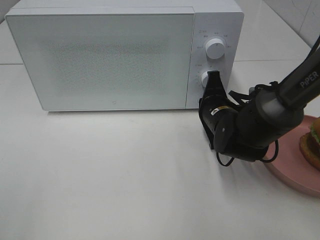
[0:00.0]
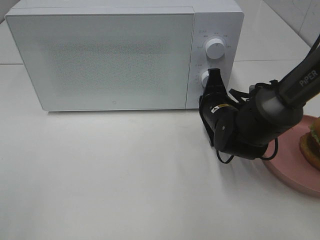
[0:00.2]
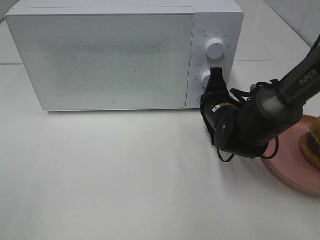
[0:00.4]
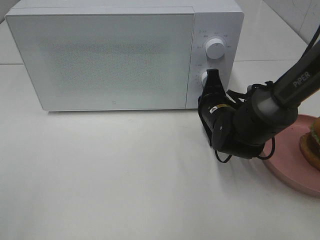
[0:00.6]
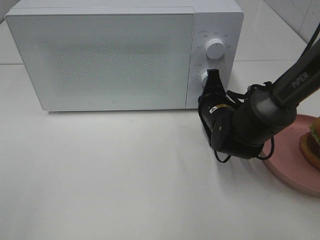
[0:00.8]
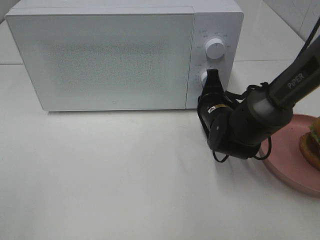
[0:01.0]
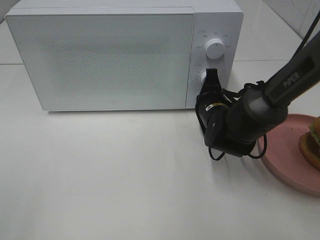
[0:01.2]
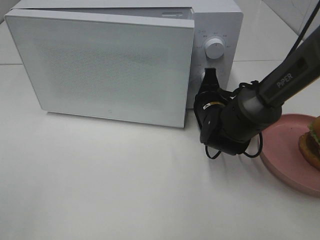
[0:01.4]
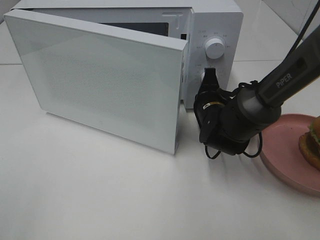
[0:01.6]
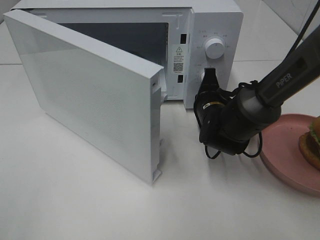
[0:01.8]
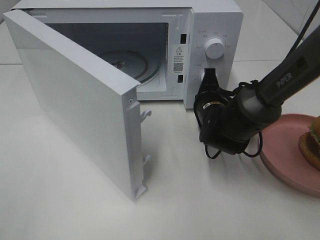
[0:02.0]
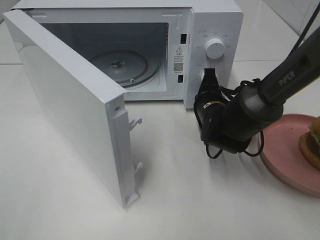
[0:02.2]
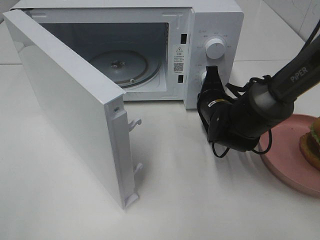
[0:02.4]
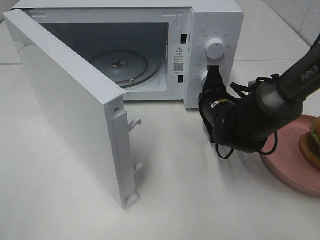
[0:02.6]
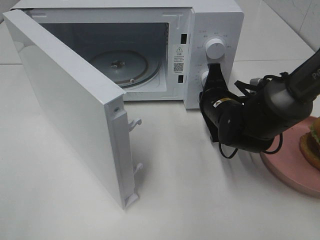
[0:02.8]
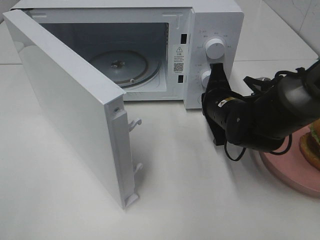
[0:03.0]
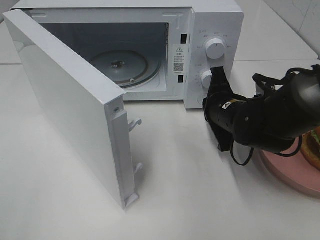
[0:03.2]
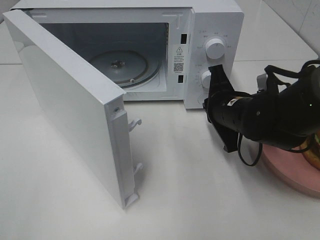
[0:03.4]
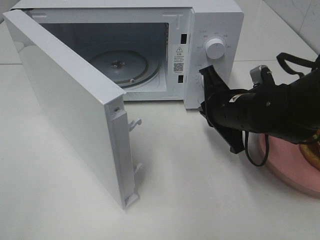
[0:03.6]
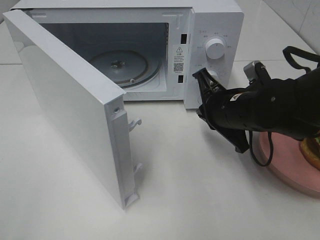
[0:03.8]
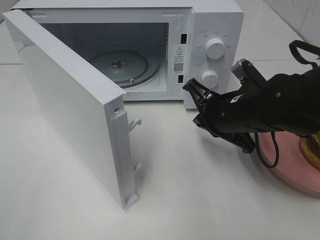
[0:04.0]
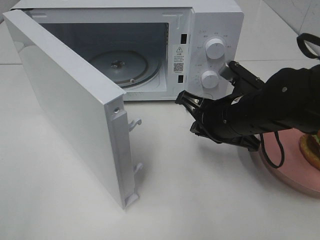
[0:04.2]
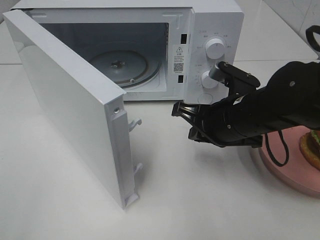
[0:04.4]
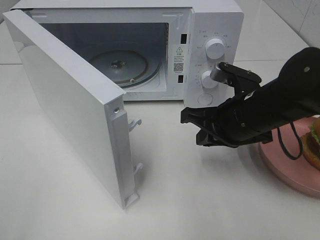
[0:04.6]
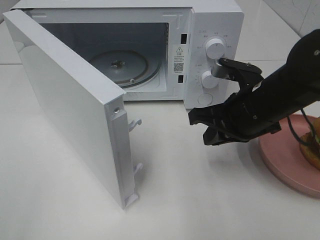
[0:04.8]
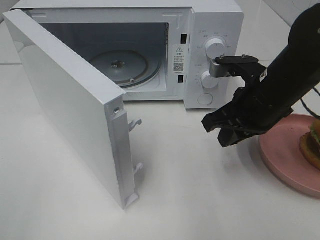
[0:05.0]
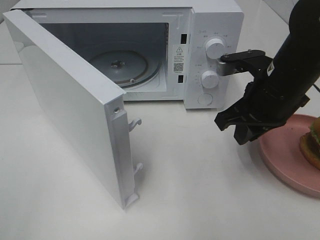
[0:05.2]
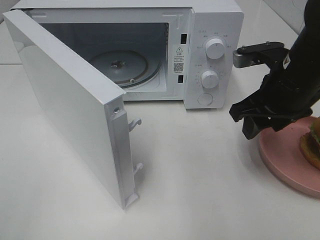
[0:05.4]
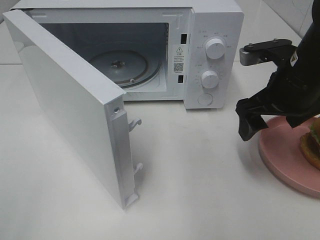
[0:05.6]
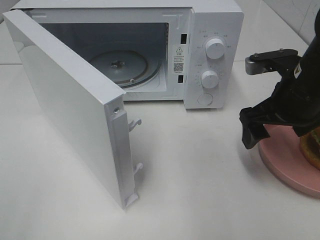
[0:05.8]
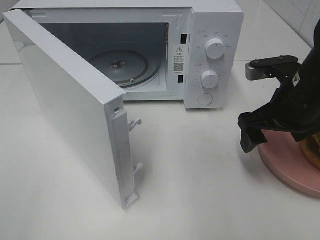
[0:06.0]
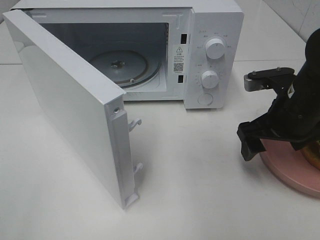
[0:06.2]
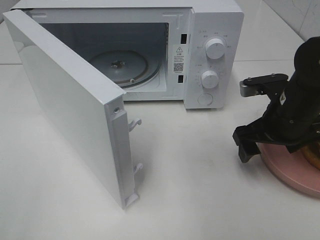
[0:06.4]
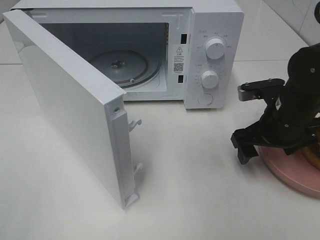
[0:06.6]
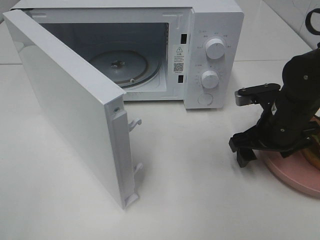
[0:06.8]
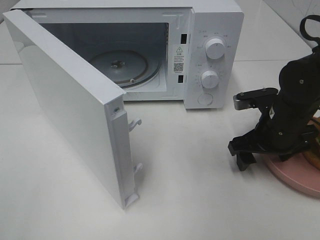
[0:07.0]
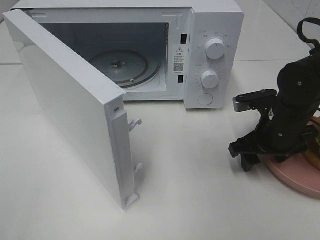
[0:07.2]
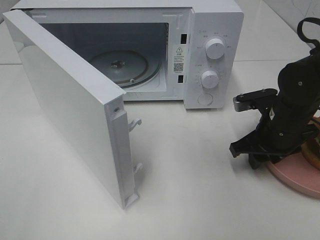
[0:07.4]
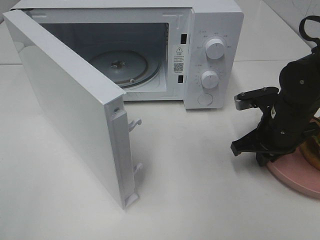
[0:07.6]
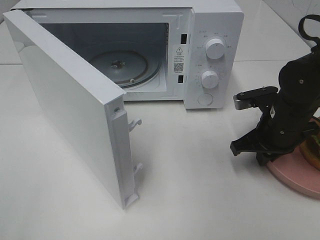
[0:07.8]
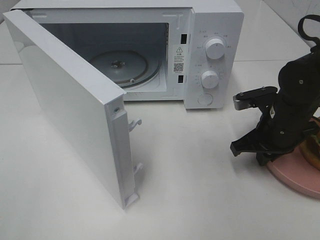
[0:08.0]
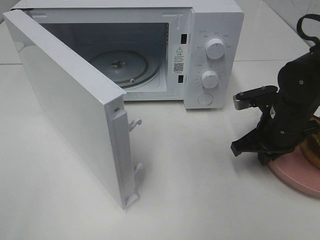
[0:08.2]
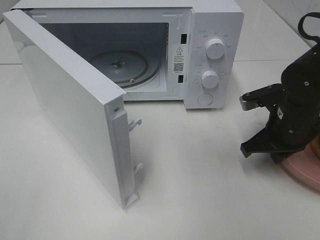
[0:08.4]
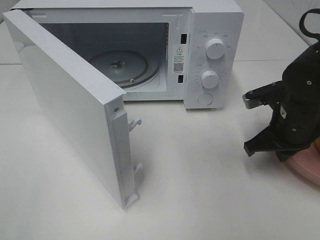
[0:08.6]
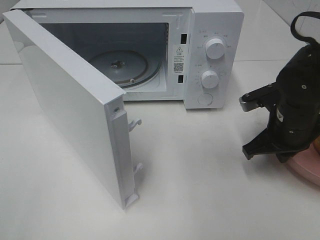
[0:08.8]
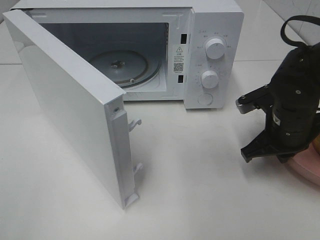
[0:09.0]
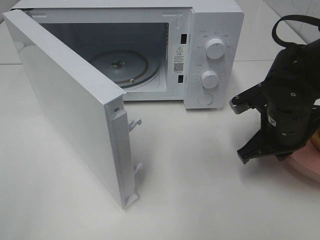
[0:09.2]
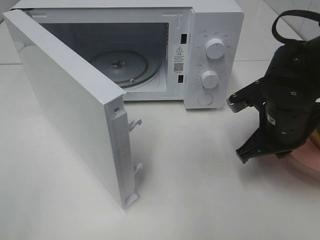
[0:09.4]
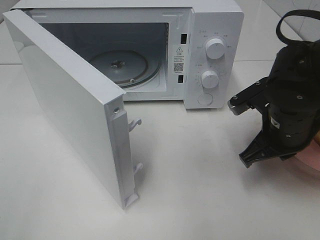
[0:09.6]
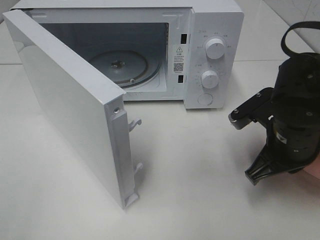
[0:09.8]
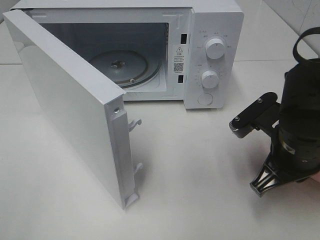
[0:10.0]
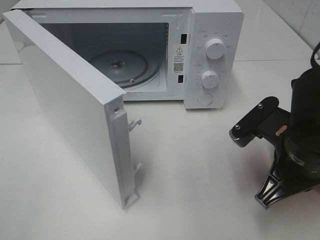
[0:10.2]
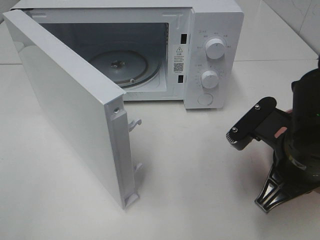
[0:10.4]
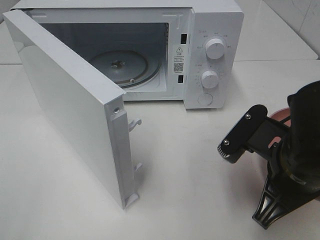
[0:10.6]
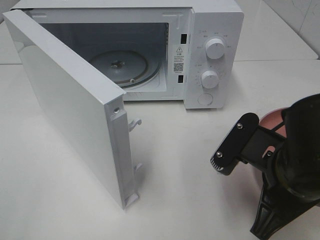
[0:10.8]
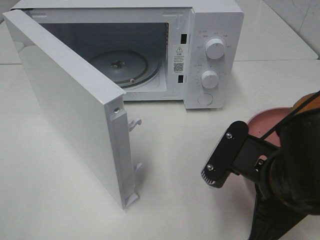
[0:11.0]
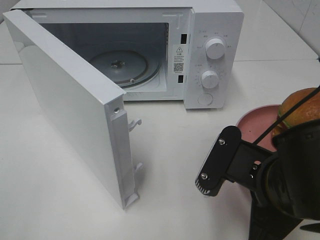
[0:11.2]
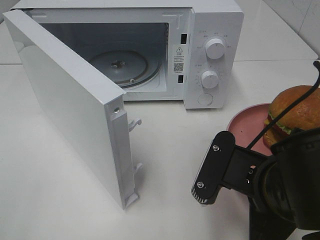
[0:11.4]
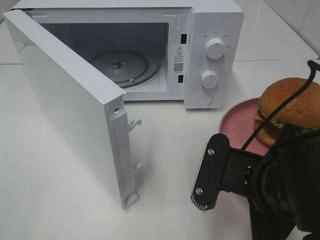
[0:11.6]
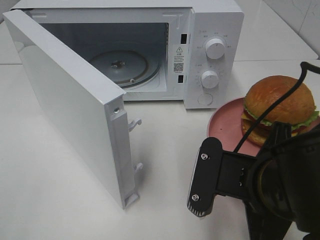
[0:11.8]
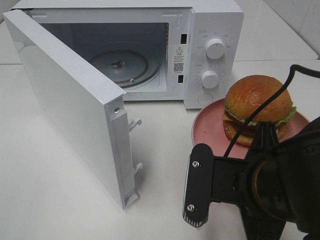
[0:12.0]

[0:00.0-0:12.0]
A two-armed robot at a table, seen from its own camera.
Task of the whole recording: Heat the burger.
Step, 0:00.0 to 0:02.8: Right hand: press the switch.
Step, 0:03.0 to 0:08.2: Right hand: grab the plate with the hamburger.
0:00.0 to 0:01.6: The grippers make only small movements.
0:03.0 to 0:04.4: The right gripper is displaced backward by some 5 cm.
0:04.4 to 0:06.0: The right gripper heads to the right, covering some 10 cm, and opens.
0:06.0 to 0:07.6: The right gripper travels downward by approximately 10 cm, and closes.
0:07.6 to 0:09.0: The grippers make only small movements.
0:09.0 to 0:10.4: The right gripper travels backward by about 10 cm.
0:10.4 to 0:12.0: The right gripper travels to the left and backward by roughly 10 cm.

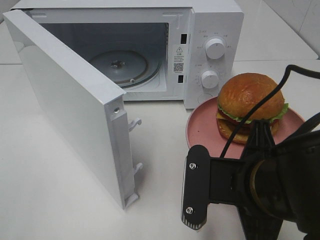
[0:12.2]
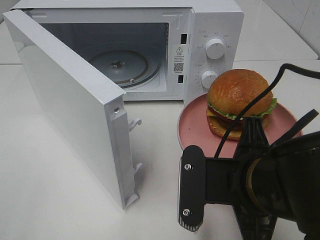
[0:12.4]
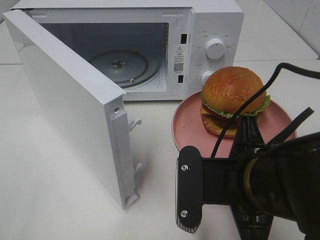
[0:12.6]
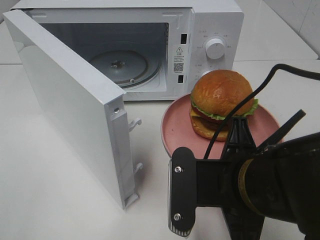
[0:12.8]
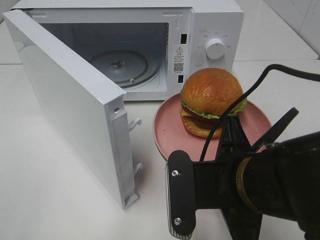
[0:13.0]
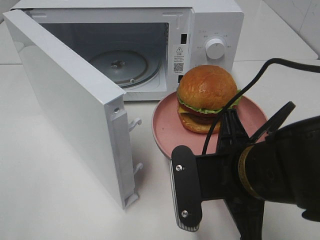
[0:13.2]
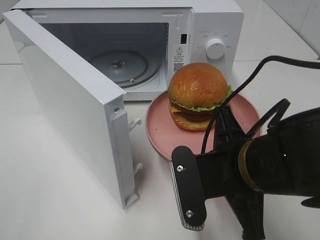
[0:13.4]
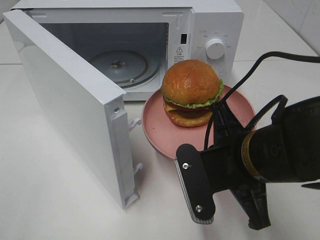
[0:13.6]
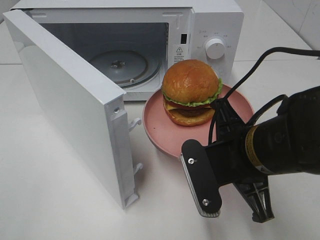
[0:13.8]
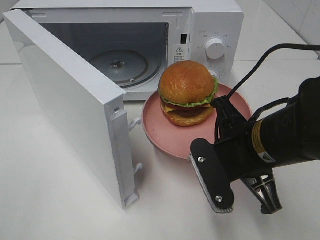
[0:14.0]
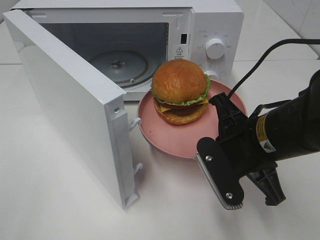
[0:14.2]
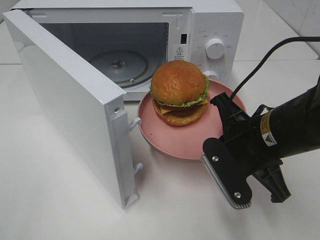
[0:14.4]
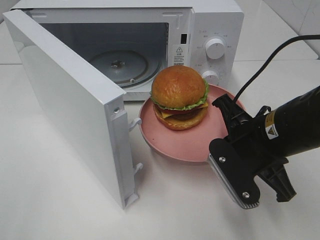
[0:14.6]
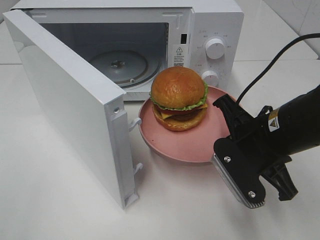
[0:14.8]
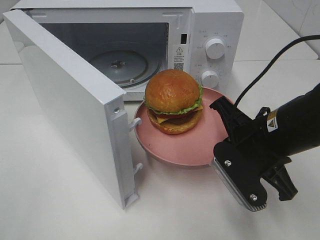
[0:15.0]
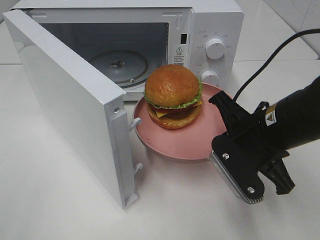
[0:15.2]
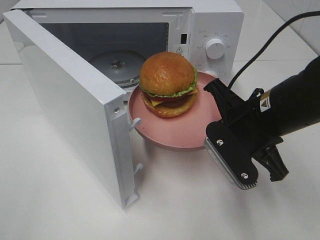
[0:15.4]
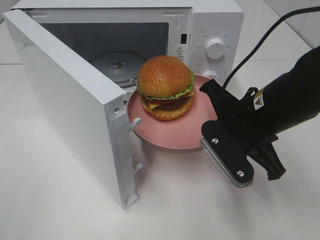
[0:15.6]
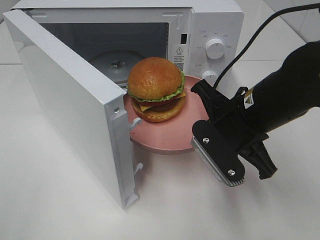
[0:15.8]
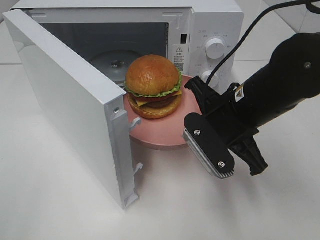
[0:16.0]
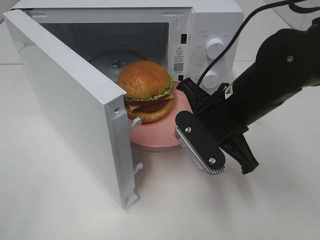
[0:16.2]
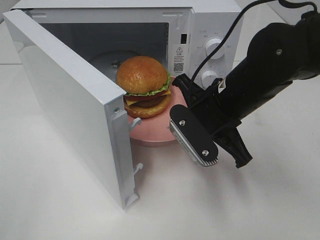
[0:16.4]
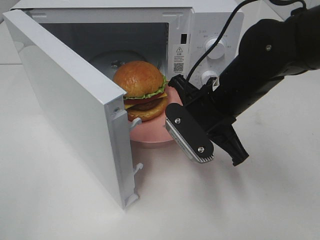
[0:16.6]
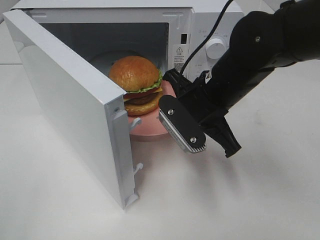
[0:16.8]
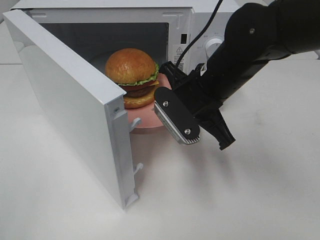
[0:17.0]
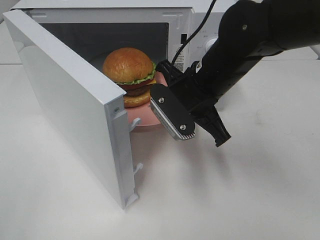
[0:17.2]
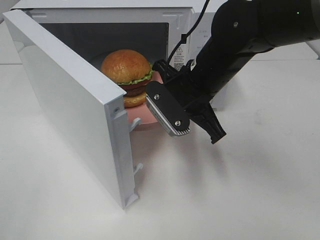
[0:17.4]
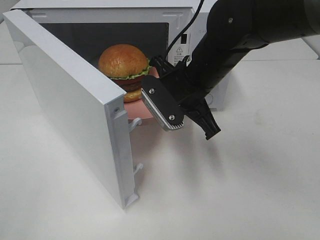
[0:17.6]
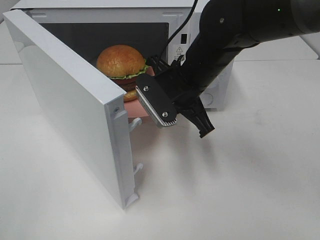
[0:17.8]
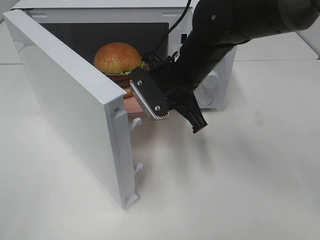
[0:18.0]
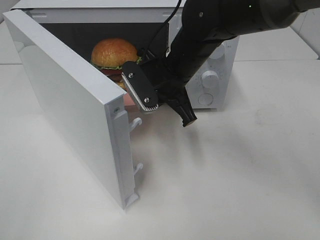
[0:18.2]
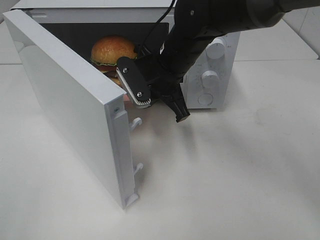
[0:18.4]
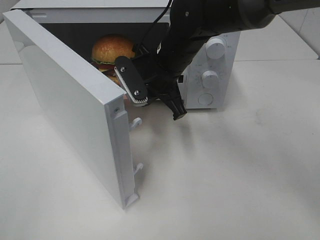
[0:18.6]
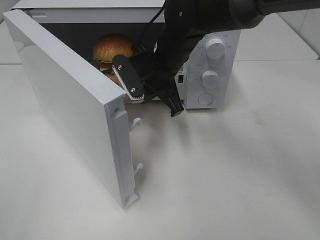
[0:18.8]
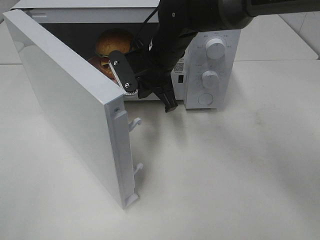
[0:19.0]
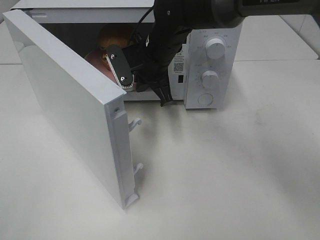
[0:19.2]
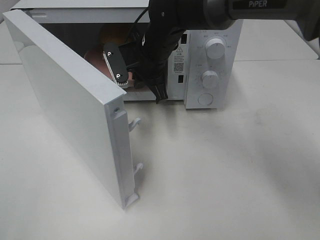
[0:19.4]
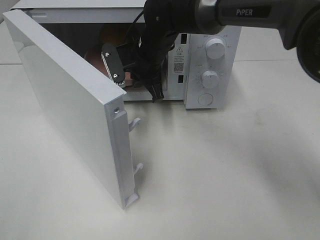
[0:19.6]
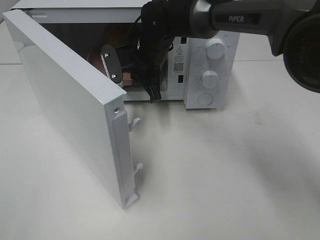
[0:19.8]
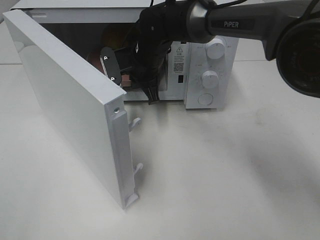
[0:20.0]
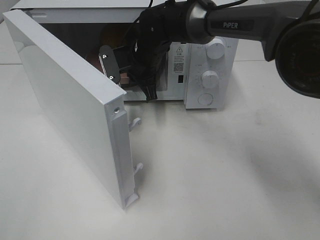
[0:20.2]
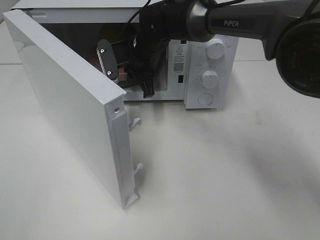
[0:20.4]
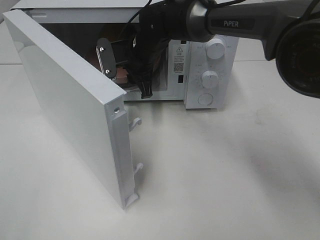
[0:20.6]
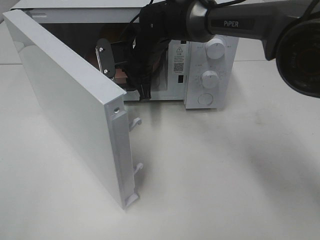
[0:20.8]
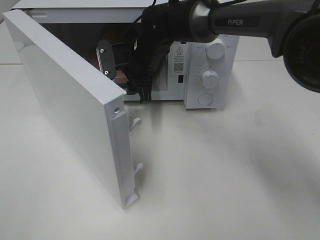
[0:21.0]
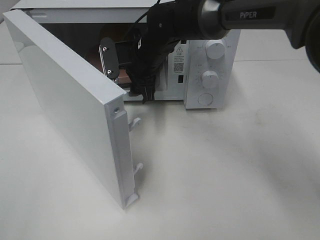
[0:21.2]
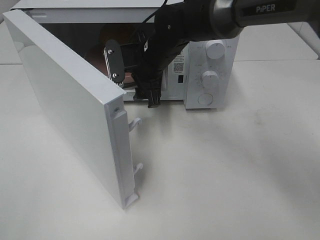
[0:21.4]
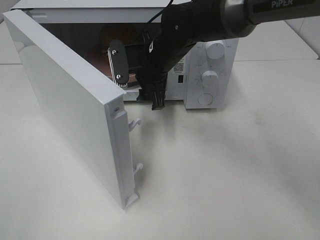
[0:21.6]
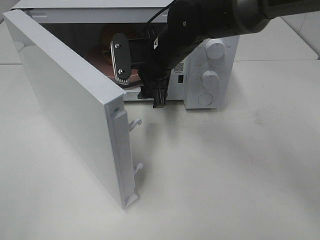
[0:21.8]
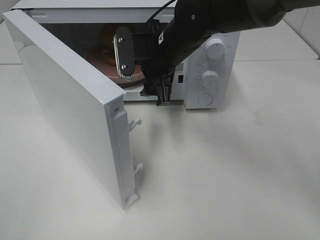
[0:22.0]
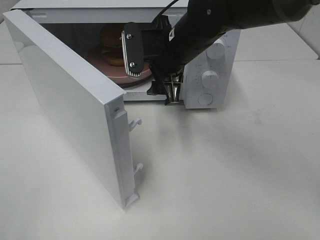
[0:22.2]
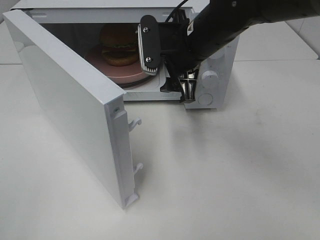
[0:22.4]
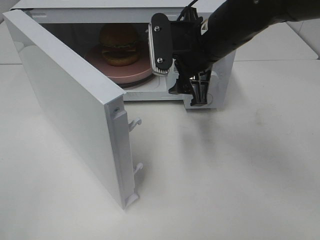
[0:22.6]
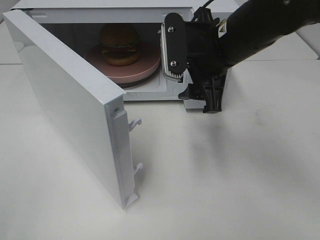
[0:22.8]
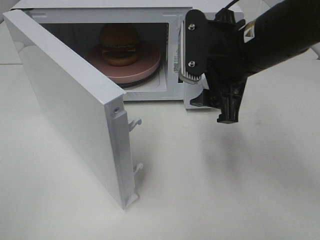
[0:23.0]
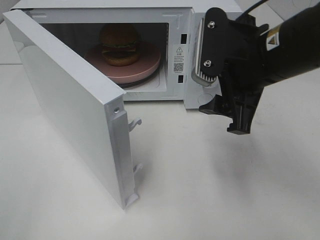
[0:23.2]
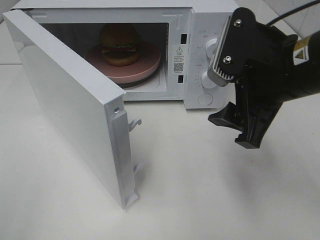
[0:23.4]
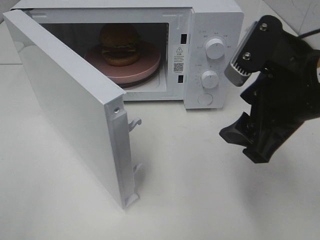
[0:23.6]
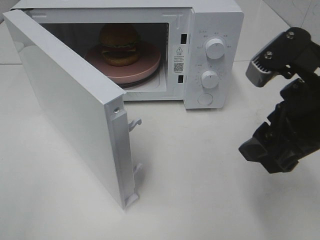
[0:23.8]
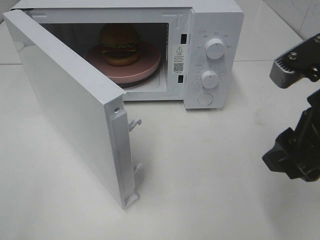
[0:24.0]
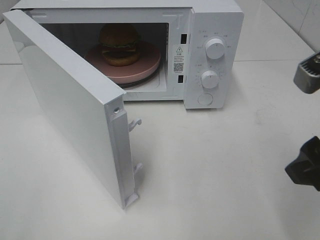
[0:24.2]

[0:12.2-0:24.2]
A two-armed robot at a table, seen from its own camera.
Task of the whole recording: Heat the burger.
Step, 0:12.2 to 0:20.6: Right hand: place the plate in the microwave.
0:13.8 to 0:15.2: The right gripper moves approximately 5 cm.
0:15.2 to 0:16.6: The right gripper moves to the left and forward, roughly 10 cm.
0:16.6 to 0:18.2: The right gripper is displaced forward and to the left by about 10 cm.
0:18.2 to 0:19.8: The right gripper travels forward and to the left by approximately 10 cm.
0:19.8 to 0:21.2: The right gripper opens up.
0:21.2 to 0:22.6: The right gripper shifts roughly 15 cm backward, to the right and upward.
0:22.6 to 0:24.2: The right gripper is displaced backward and to the right by approximately 20 cm.
